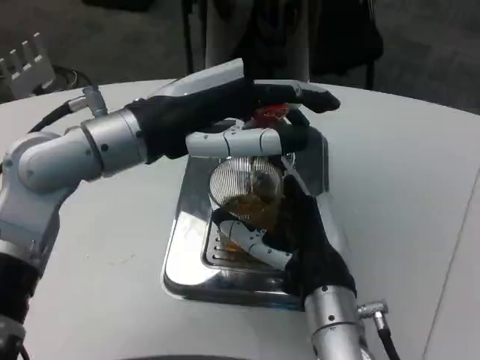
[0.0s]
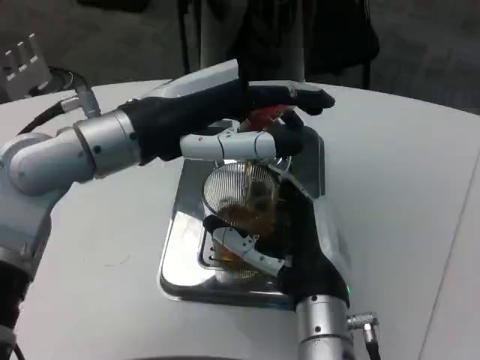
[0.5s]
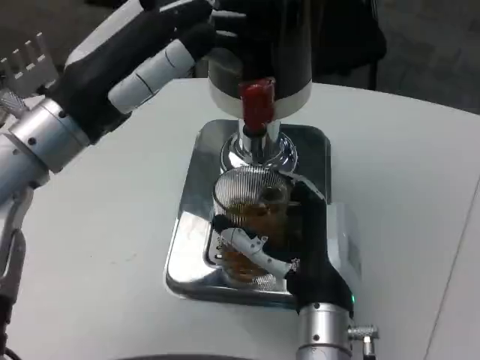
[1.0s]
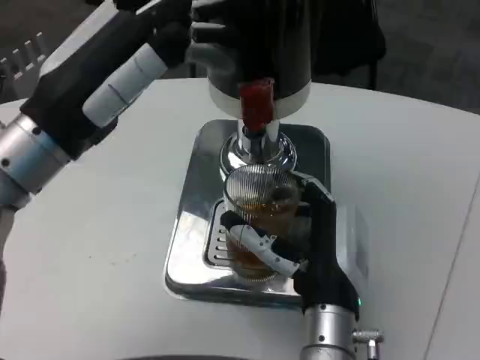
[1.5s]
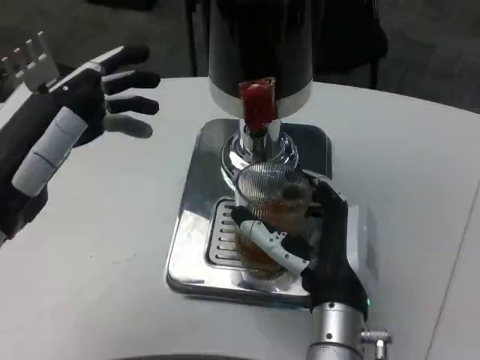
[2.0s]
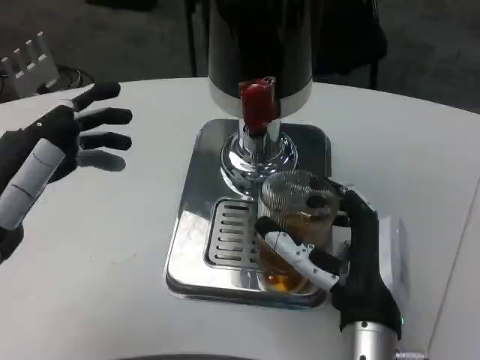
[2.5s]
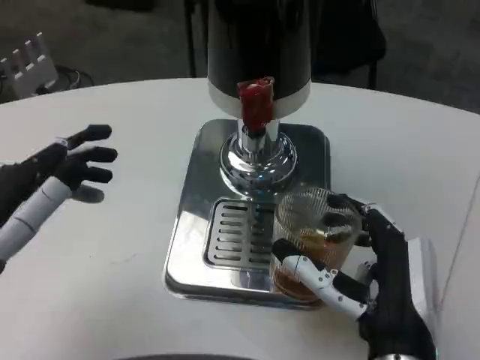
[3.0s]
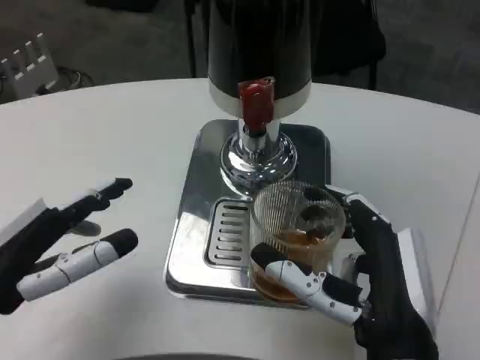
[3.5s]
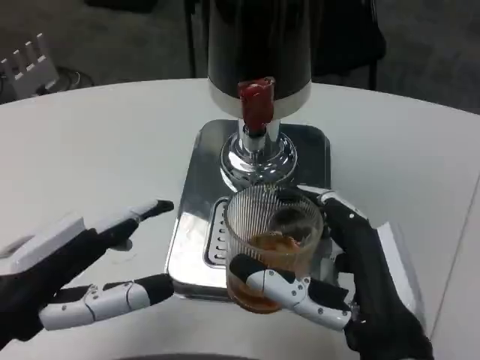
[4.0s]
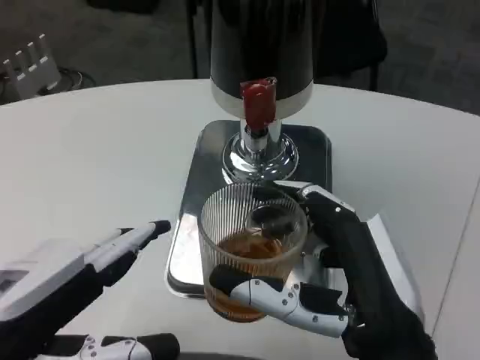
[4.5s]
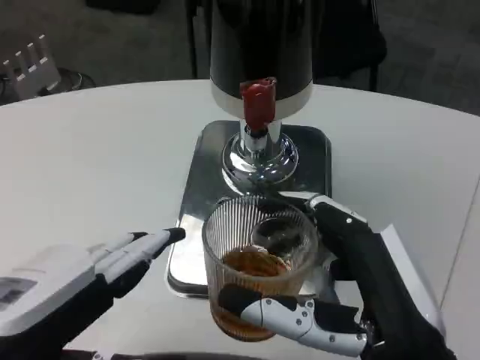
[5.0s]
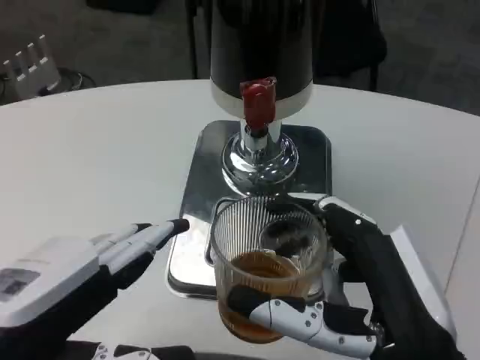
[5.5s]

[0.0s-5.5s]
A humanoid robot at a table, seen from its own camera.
Task of the whole recording: Grasp the cup under the faucet to collect the drink, then remove the cup.
0.0s to 2.0s: The left hand heads backward, to the left and downward, covering some 15 cm.
2.0s to 3.5s: The right hand travels backward by roughly 10 cm, while the left hand moves approximately 5 cm.
3.5s to 5.5s: The right hand changes place by roughly 5 cm, while the left hand goes some 5 cm backward.

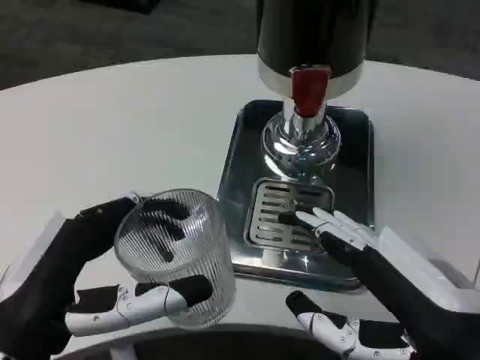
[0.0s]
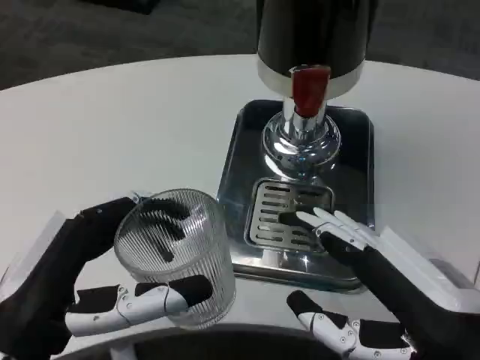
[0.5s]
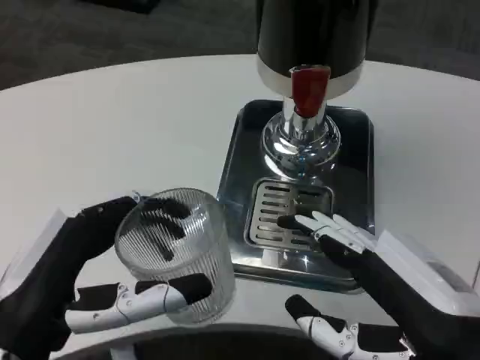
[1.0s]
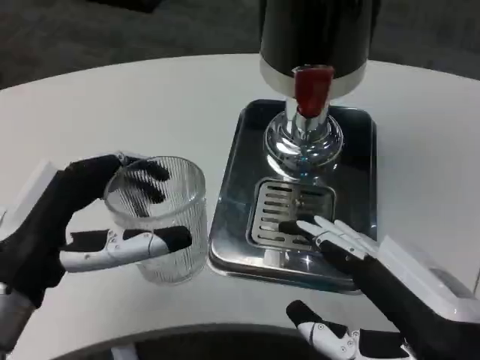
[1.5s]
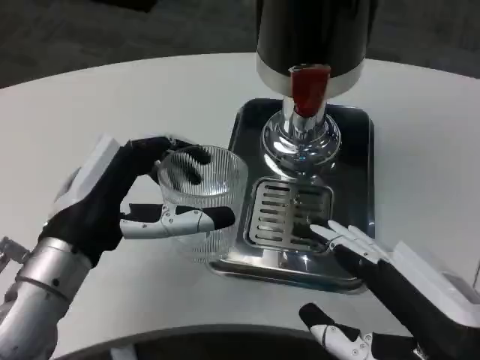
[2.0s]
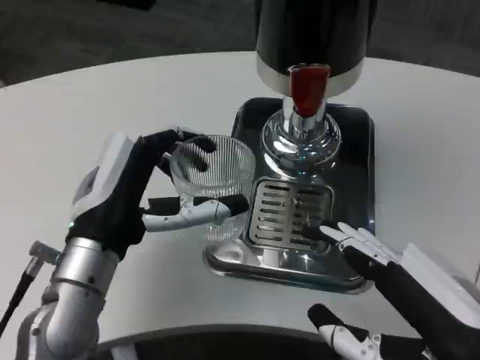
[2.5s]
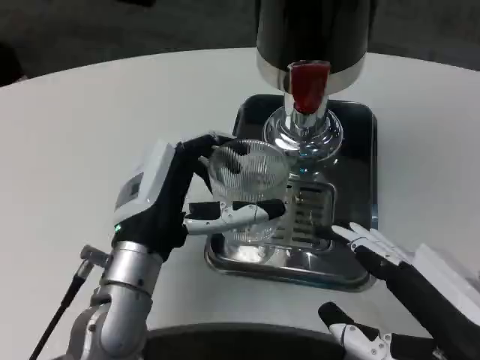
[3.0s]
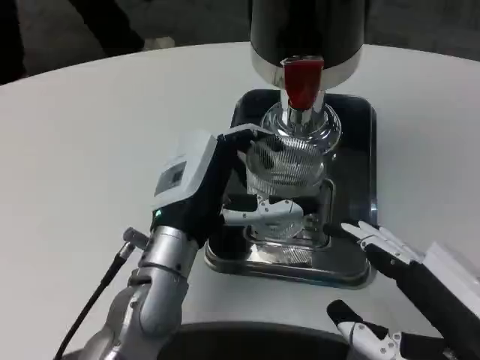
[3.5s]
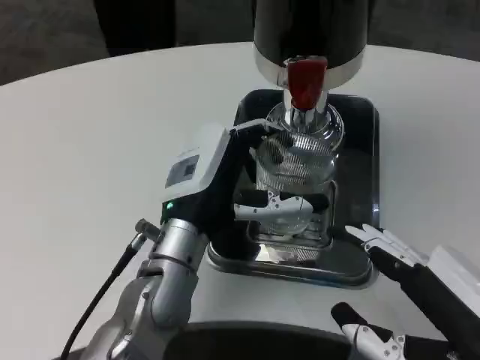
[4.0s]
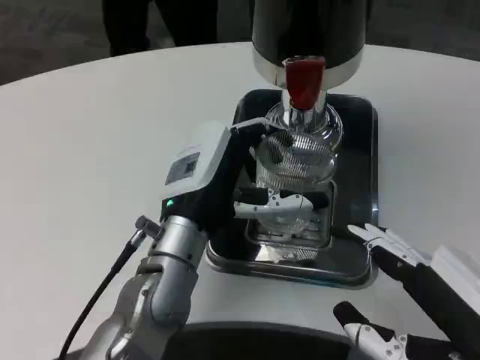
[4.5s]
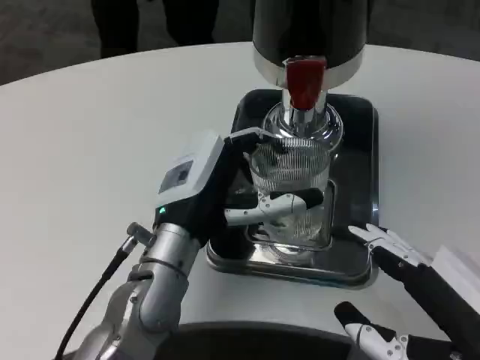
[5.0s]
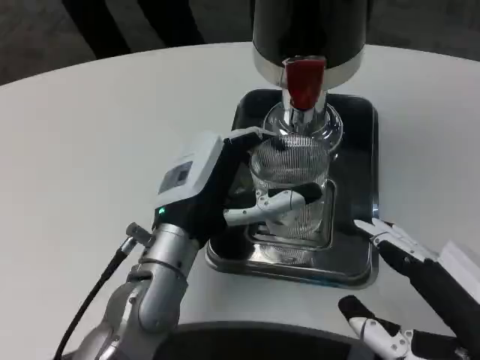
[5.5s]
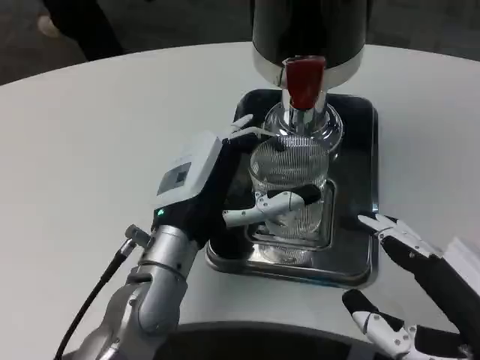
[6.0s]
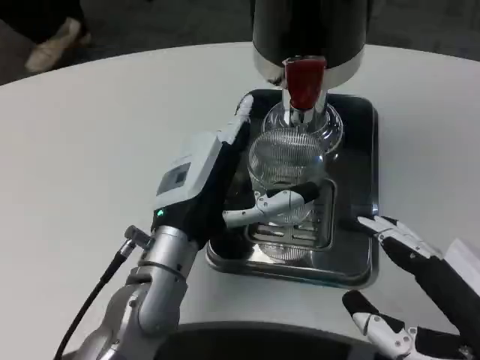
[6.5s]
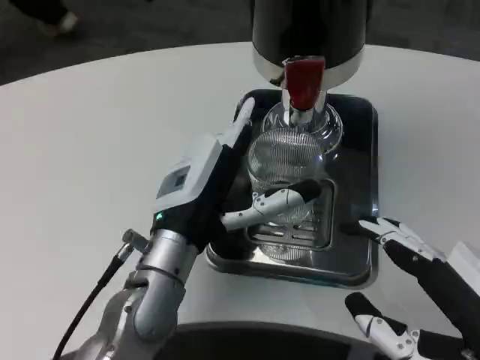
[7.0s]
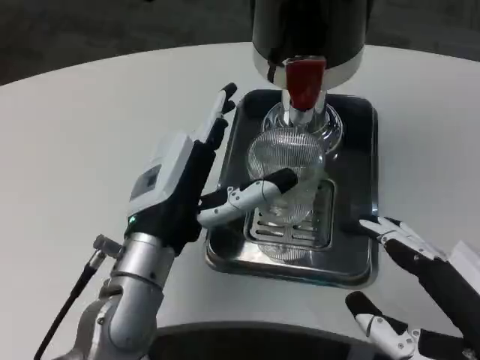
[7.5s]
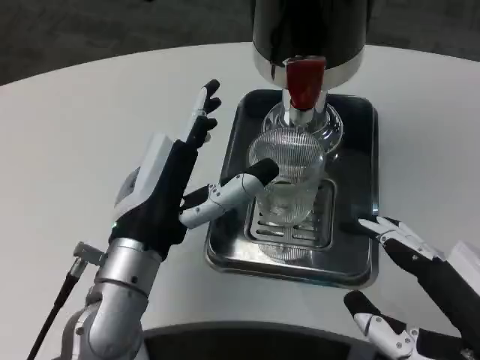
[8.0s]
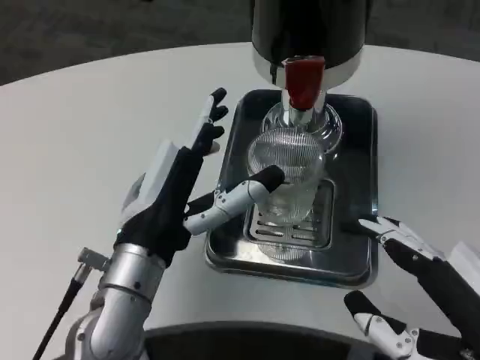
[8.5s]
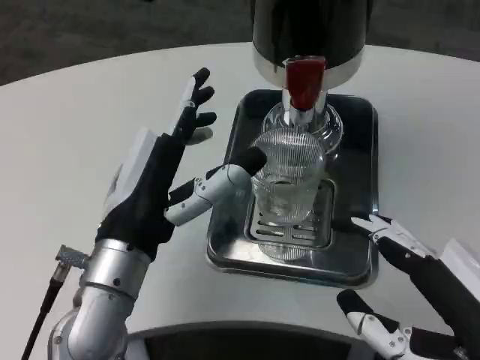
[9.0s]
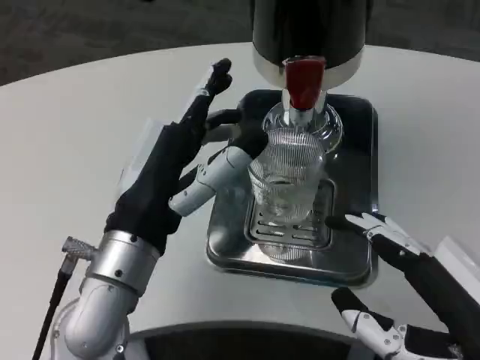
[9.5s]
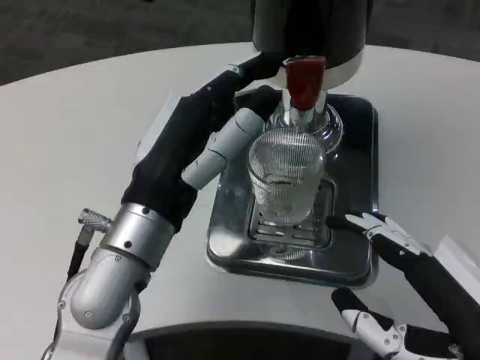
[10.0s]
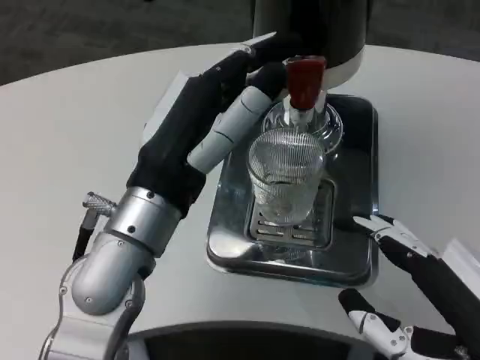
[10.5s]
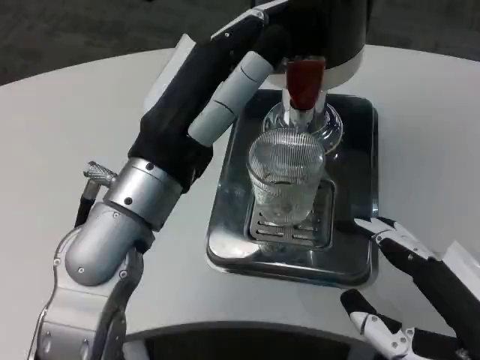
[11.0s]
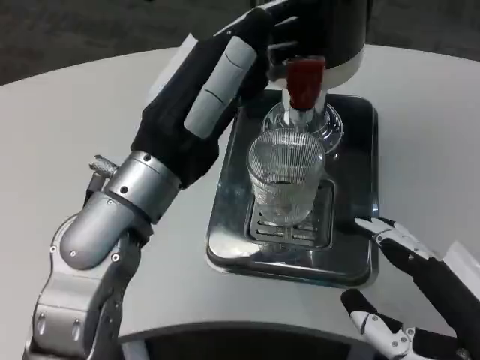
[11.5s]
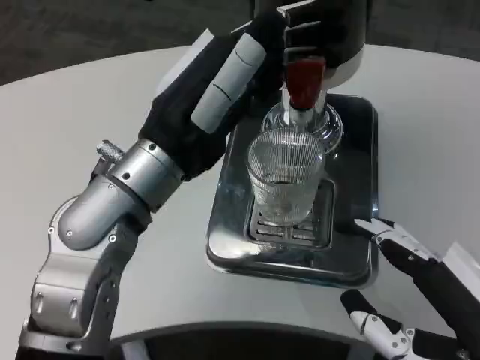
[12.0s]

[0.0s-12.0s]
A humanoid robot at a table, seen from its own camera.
Task of the whole recording: Grasp the cup under the faucet to collect the drink, then remove the cup.
0.0s to 2.0s: The left hand is displaced forward by about 10 cm.
2.0s to 4.0s: The left hand goes about 10 cm to the right and forward.
10.0s to 12.0s: The left hand moves approximately 5 cm.

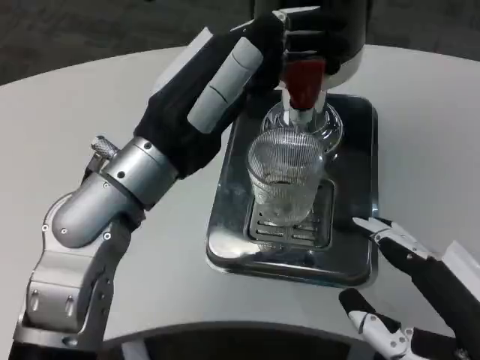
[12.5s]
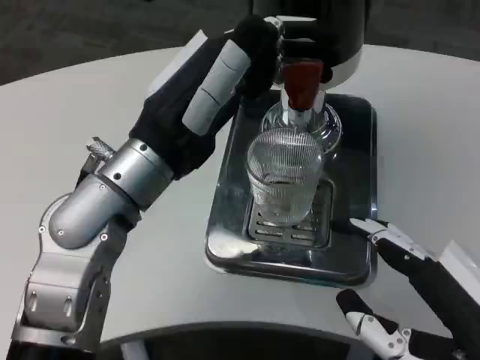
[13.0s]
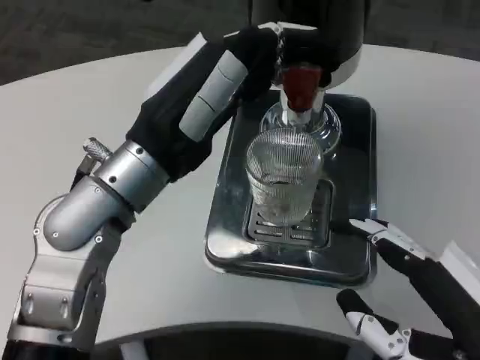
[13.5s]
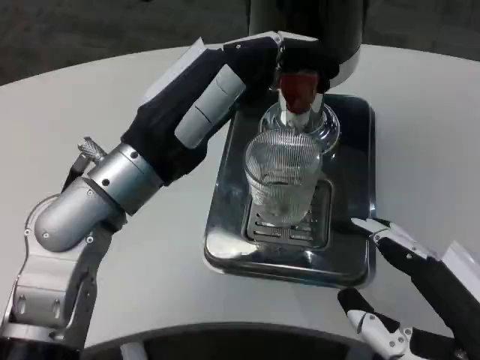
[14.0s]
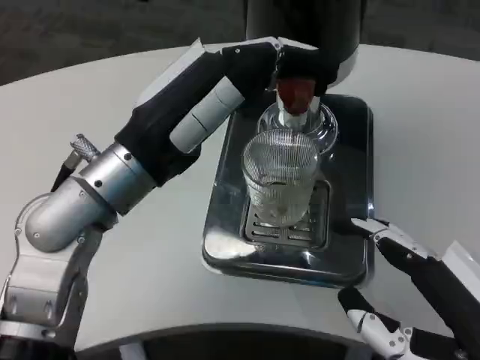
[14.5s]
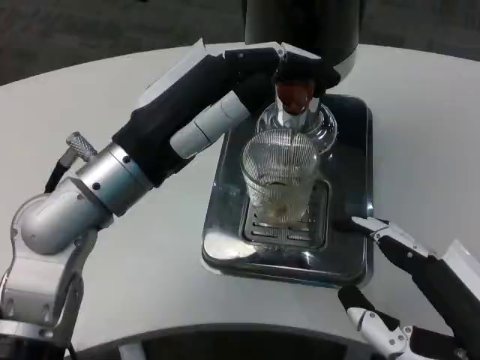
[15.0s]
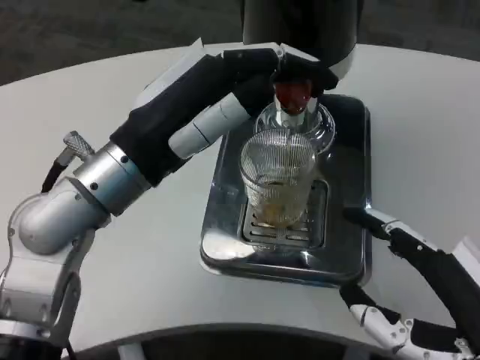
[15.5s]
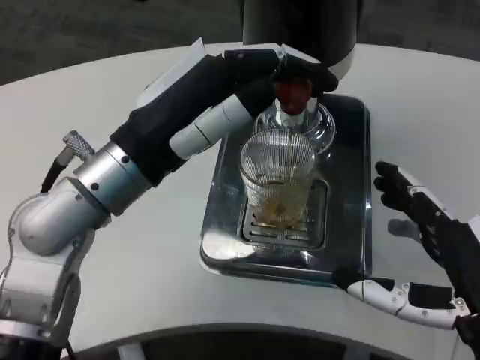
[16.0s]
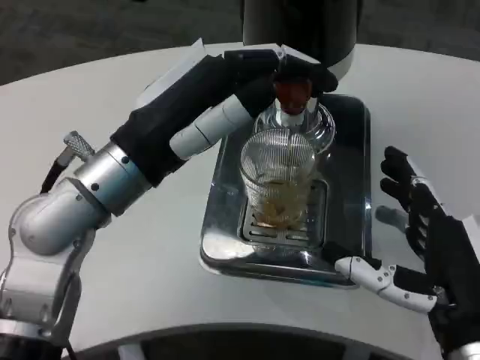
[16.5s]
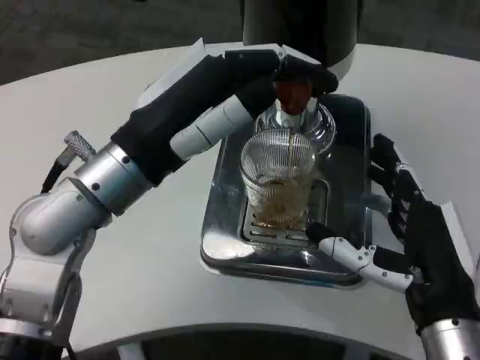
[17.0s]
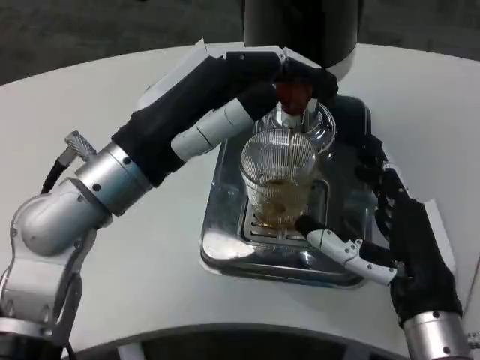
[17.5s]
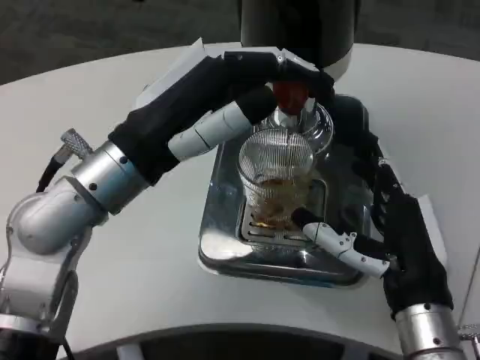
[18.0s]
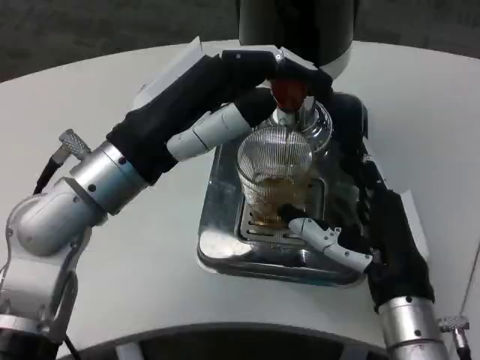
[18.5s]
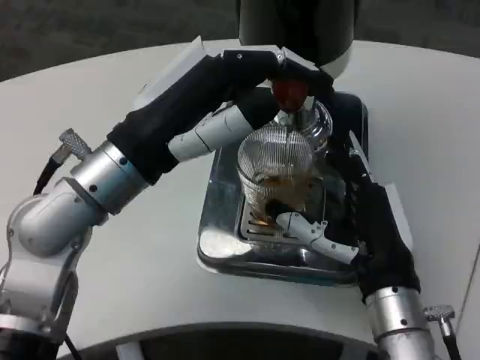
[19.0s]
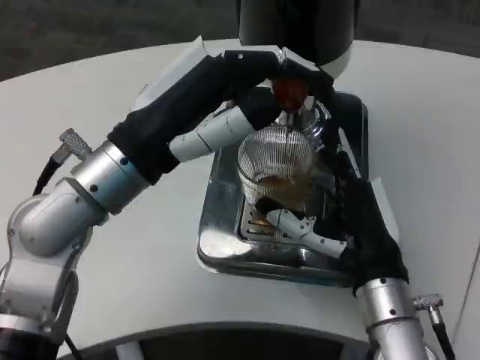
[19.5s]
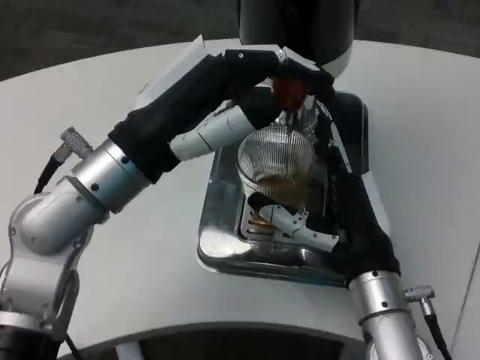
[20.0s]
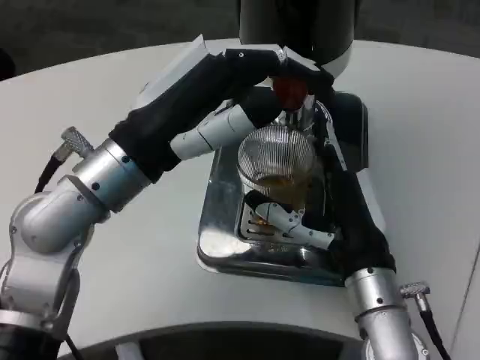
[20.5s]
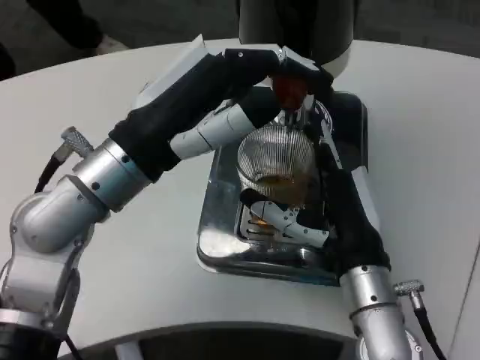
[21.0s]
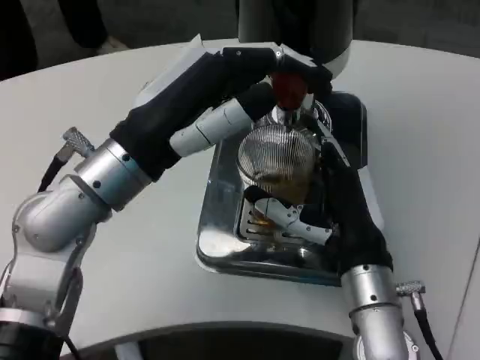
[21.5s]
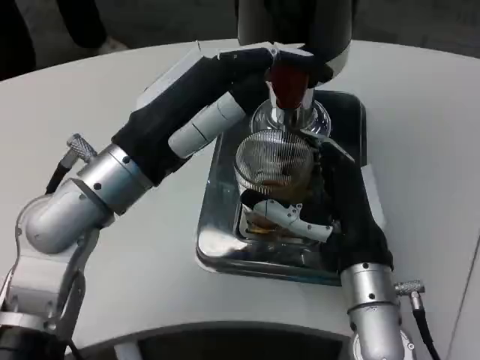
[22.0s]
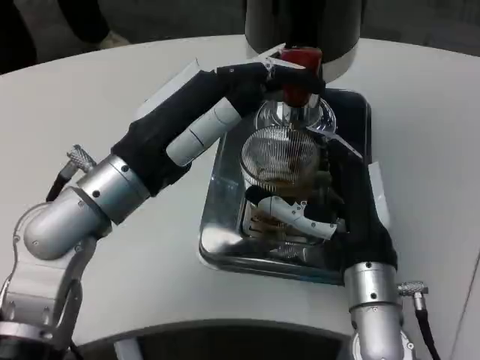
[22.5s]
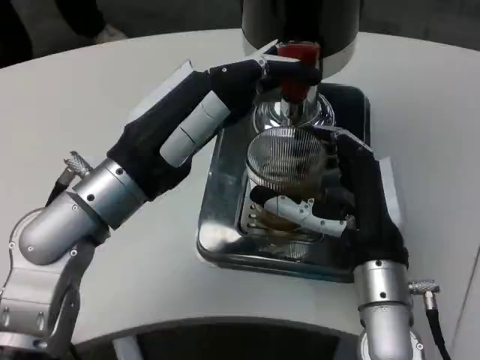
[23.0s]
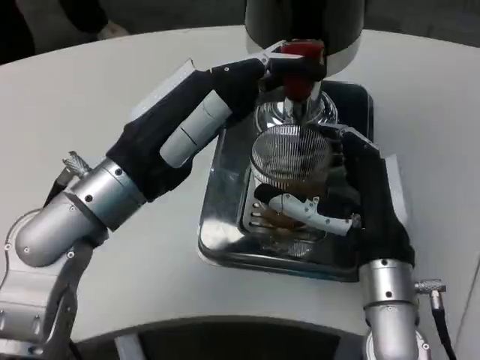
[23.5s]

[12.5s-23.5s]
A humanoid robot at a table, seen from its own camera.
Task of the whole recording: Grasp the cup under the faucet to collect the drink, then remove the cup.
16.0s to 18.0s: The right hand goes about 10 cm forward and to the left.
20.0s to 21.5s: The two hands keep their place.
